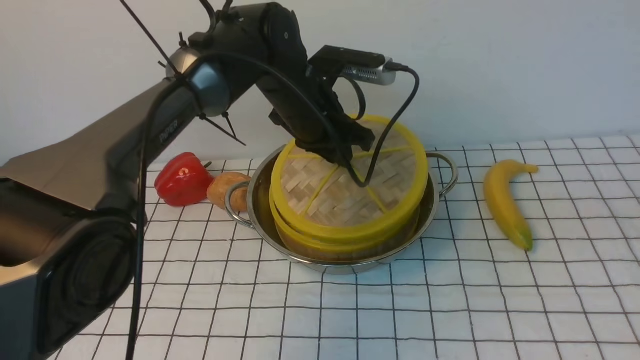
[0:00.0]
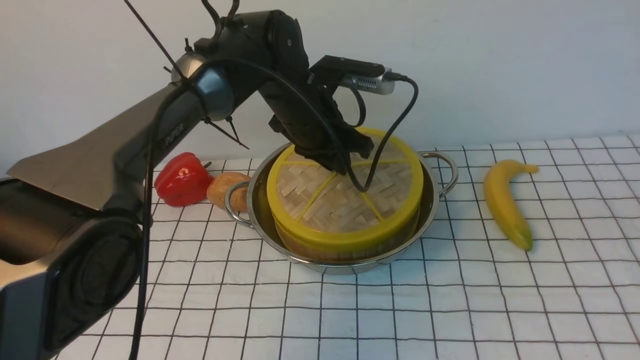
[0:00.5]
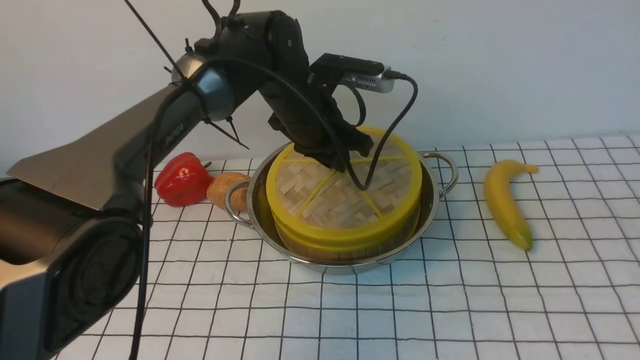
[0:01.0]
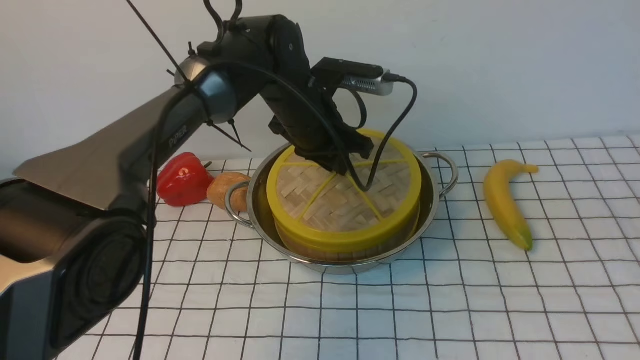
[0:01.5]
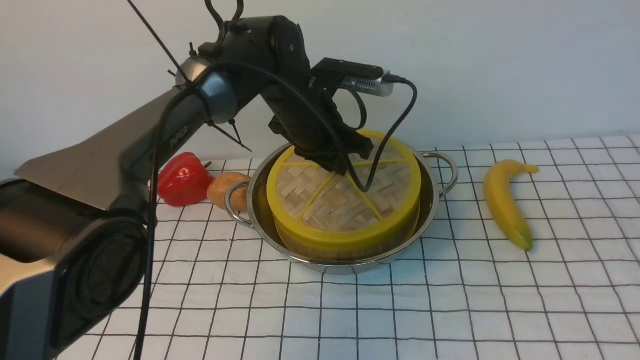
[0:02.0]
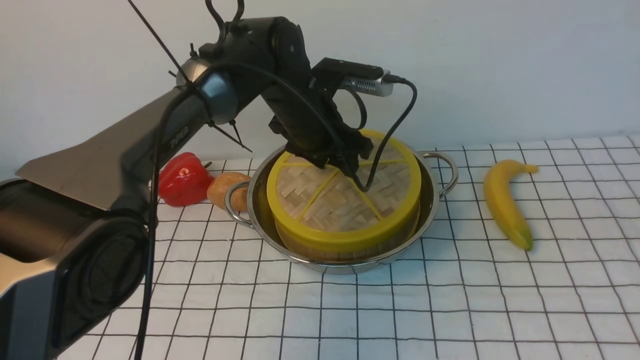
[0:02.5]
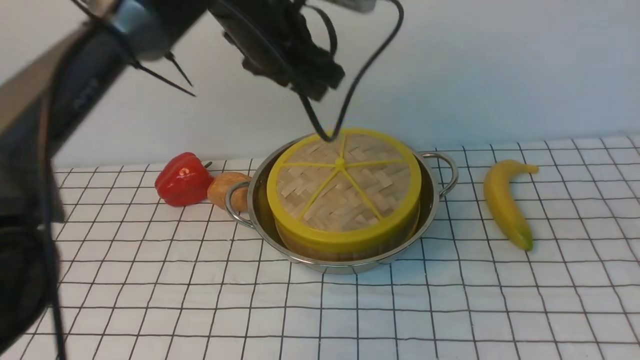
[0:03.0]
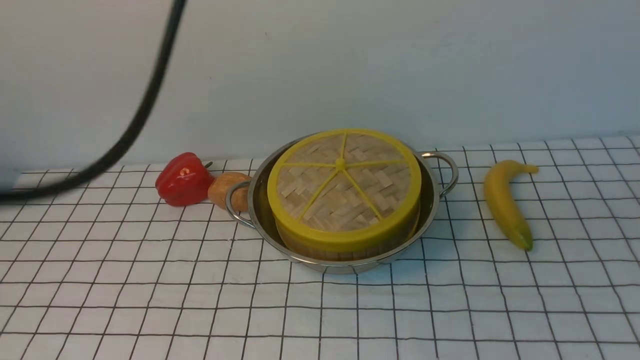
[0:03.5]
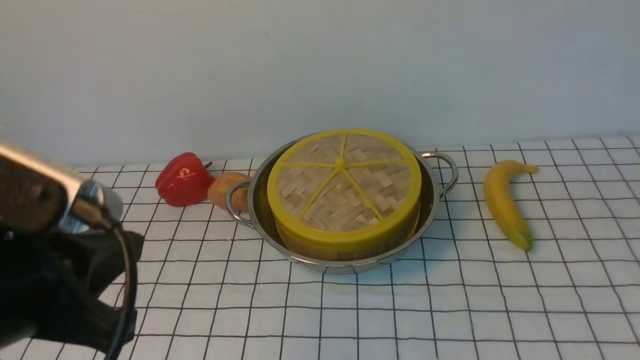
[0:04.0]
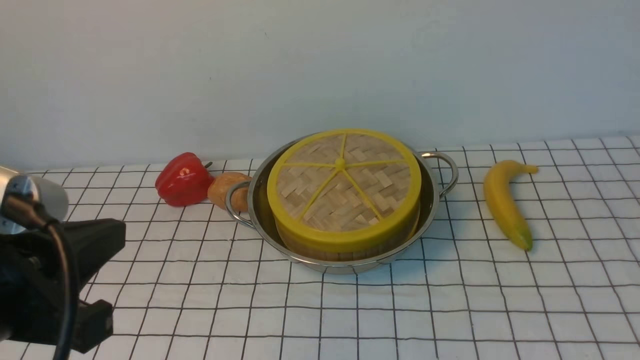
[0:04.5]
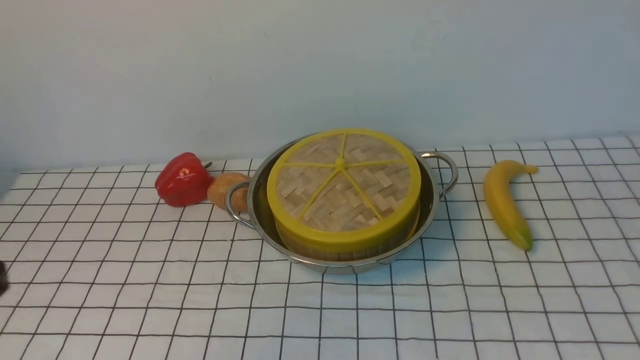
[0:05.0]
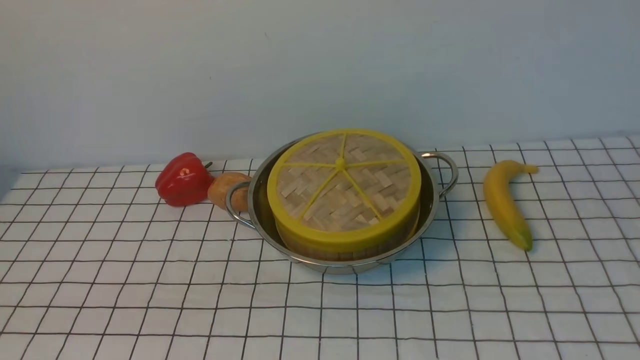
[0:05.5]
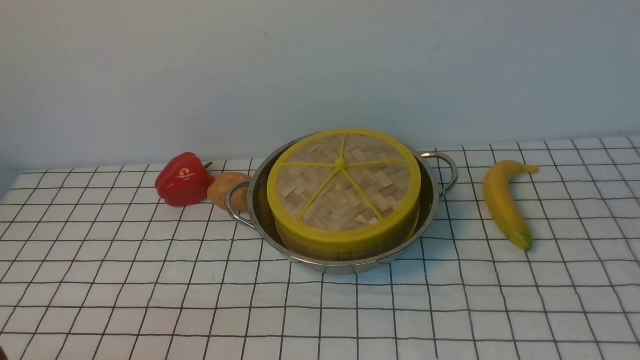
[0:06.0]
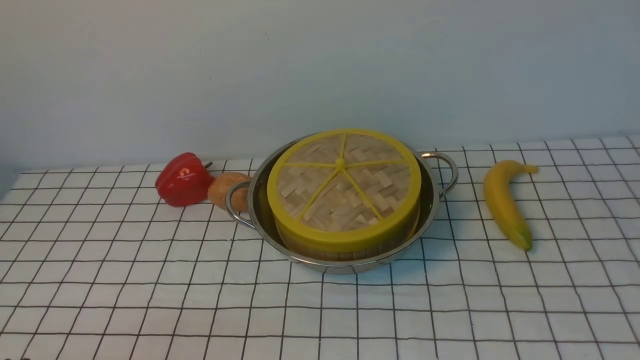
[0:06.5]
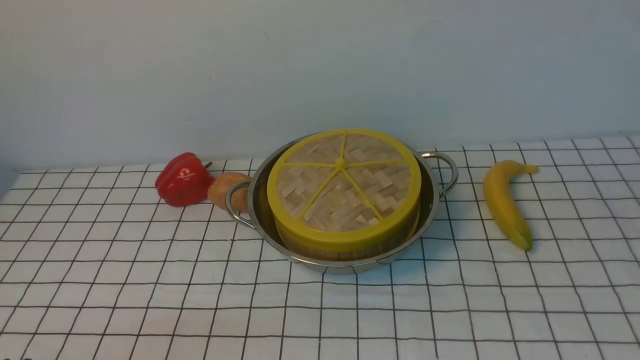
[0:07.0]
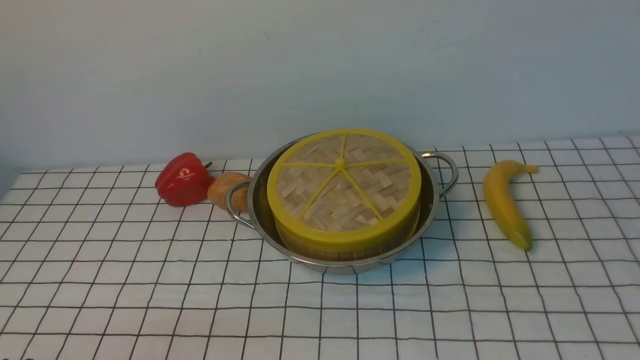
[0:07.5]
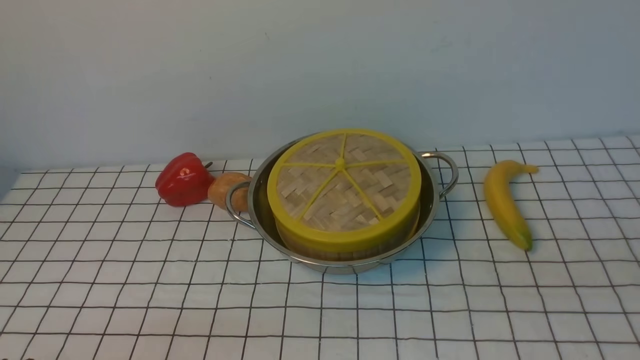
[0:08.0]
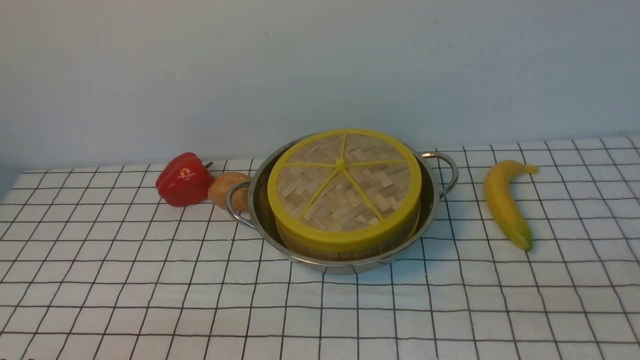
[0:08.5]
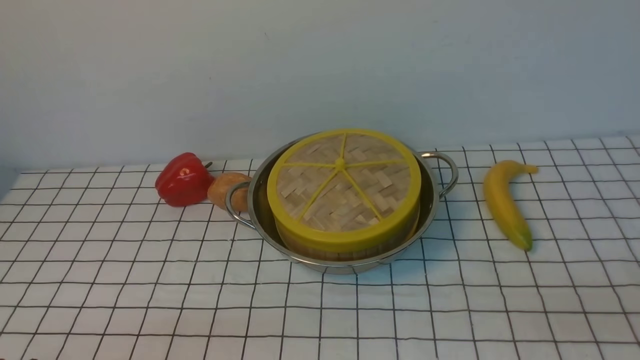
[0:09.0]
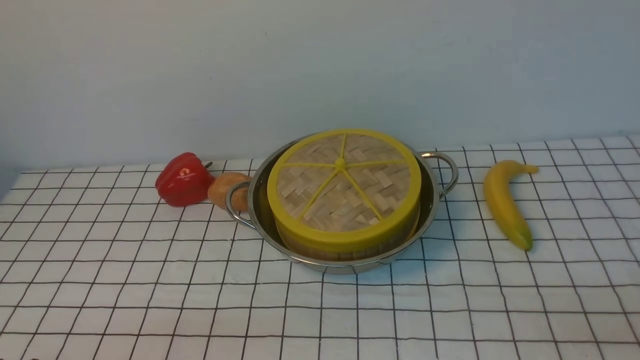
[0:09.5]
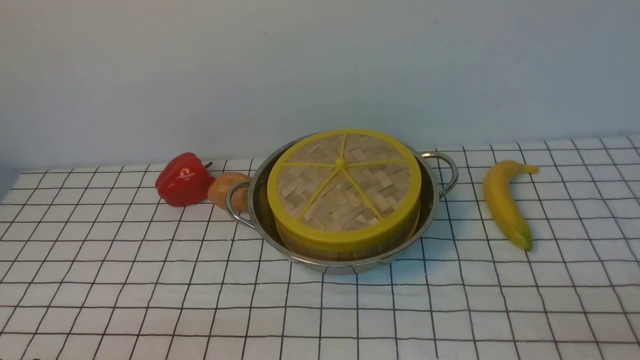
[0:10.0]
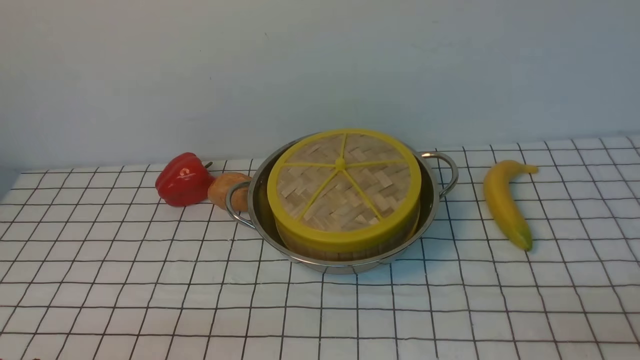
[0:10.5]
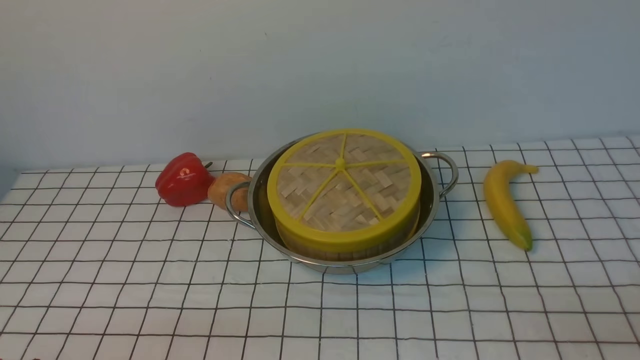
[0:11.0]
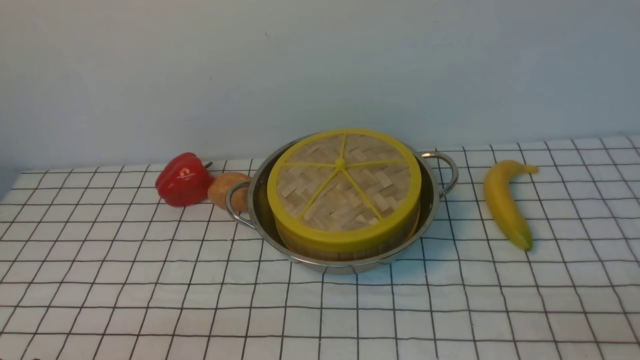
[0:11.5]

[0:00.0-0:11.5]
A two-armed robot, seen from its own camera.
Task of the whole recording: place the steamer in the pot on the white tablecloth, and put the lid on the steamer.
Step, 0:00.0 to 0:02.5: use the left arm to place the steamer lid on the steamer.
0:00.0 to 0:02.0: The grippers stay close to where they were, moving slightly.
0:02.0 to 0:04.0: The left gripper moves backward and to the left, roughly 35 cm, and closes up.
0:04.0 to 0:06.0: The left gripper heads downward, backward and to the left, covering about 20 cm.
0:09.5 to 0:11.5: Neither gripper changes place.

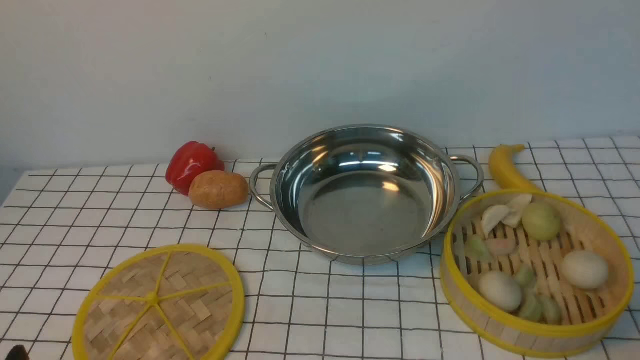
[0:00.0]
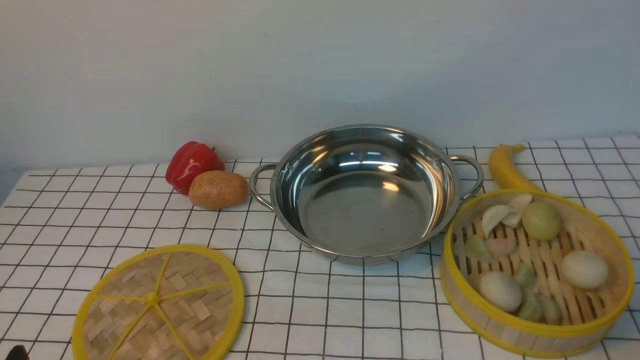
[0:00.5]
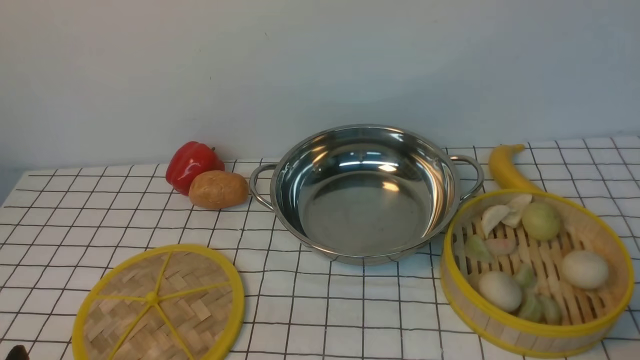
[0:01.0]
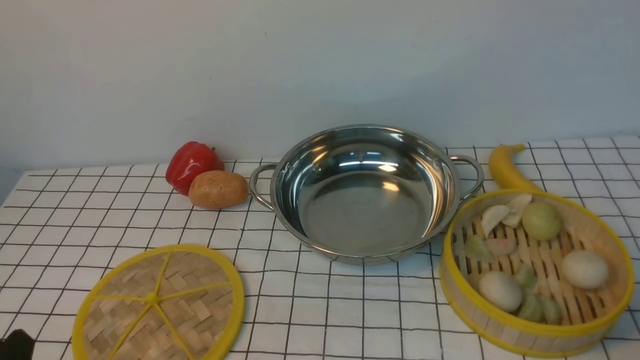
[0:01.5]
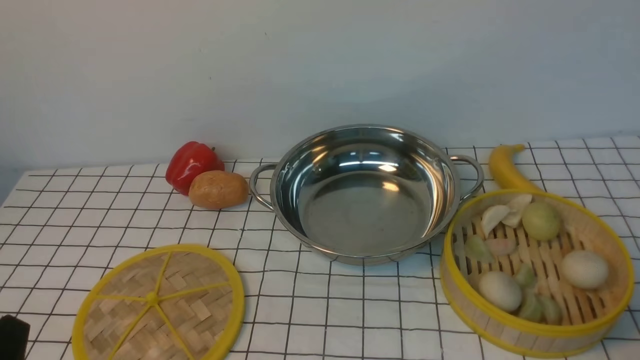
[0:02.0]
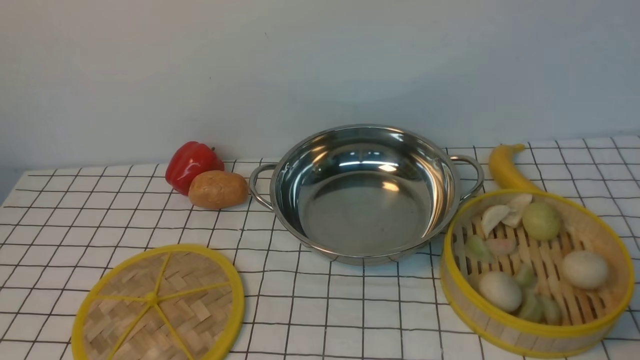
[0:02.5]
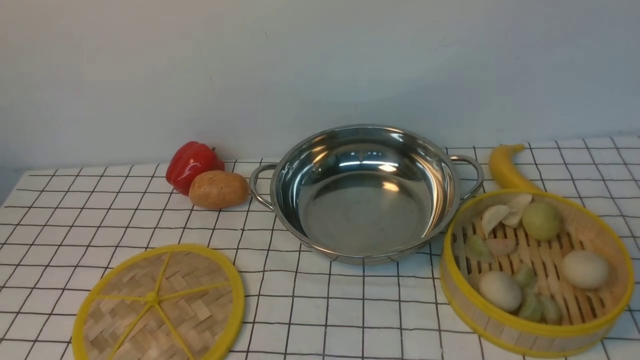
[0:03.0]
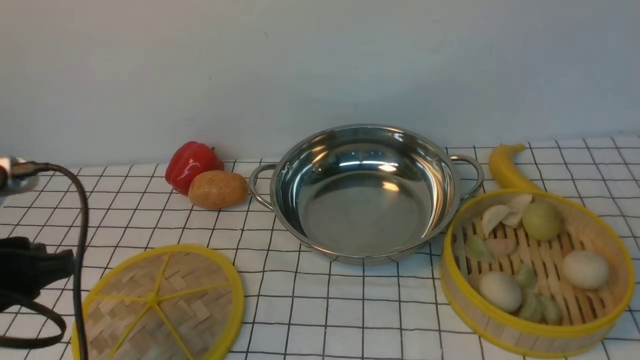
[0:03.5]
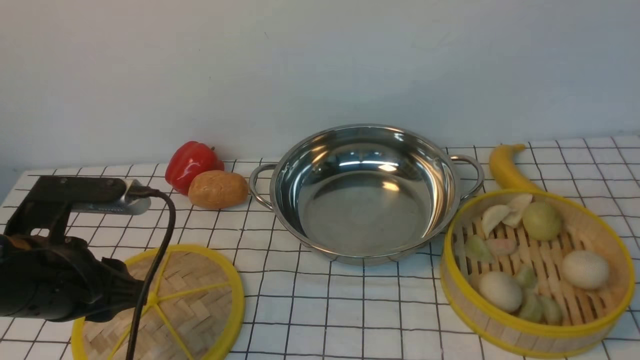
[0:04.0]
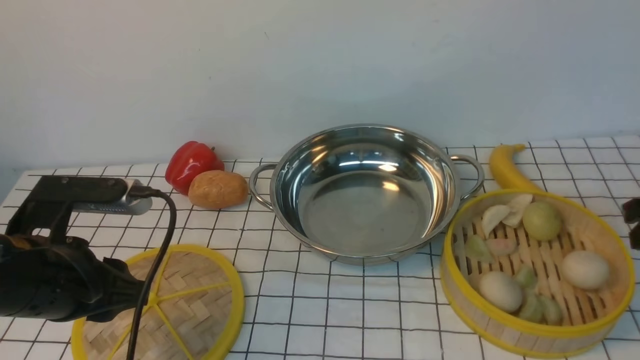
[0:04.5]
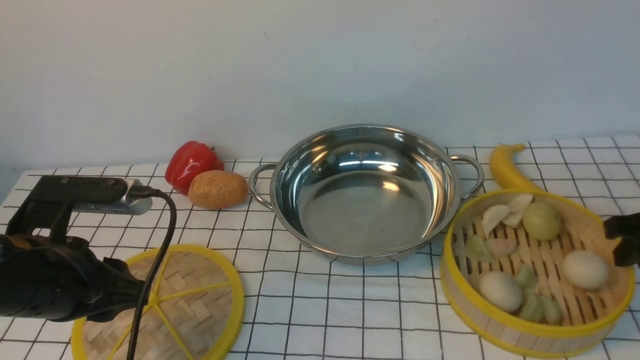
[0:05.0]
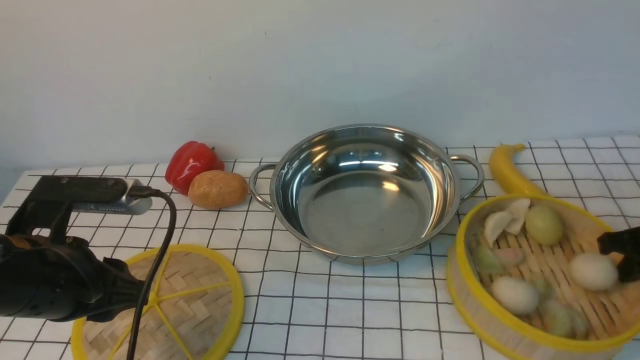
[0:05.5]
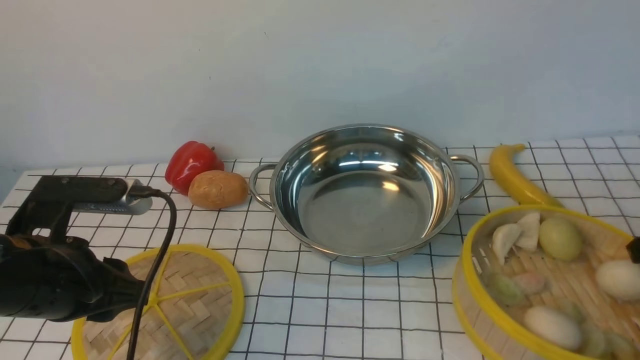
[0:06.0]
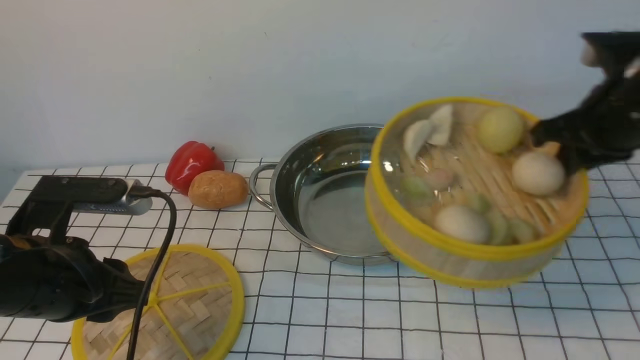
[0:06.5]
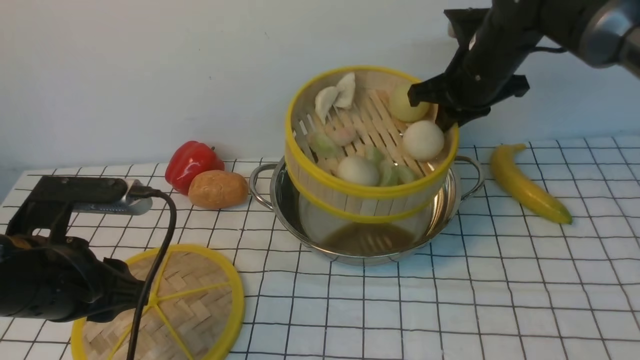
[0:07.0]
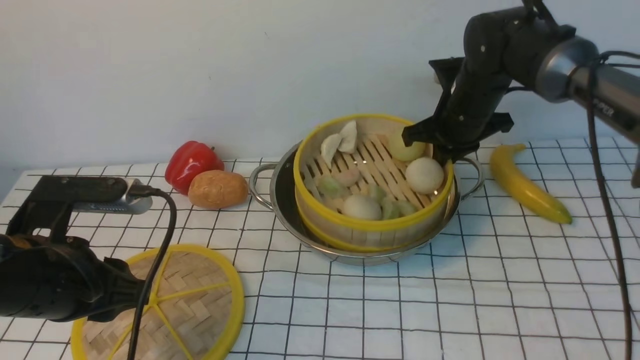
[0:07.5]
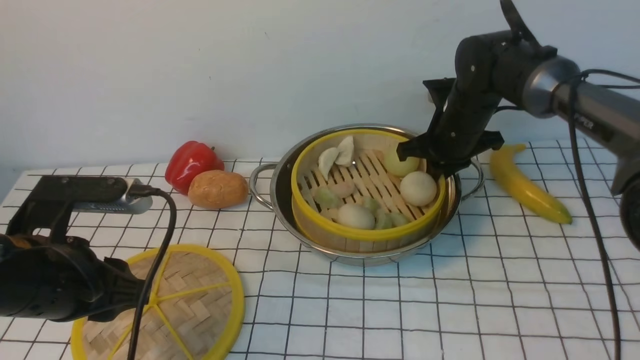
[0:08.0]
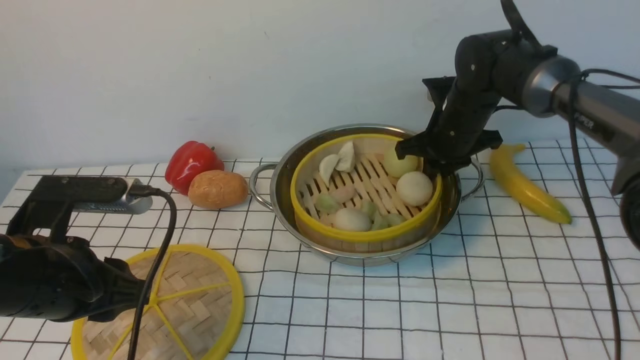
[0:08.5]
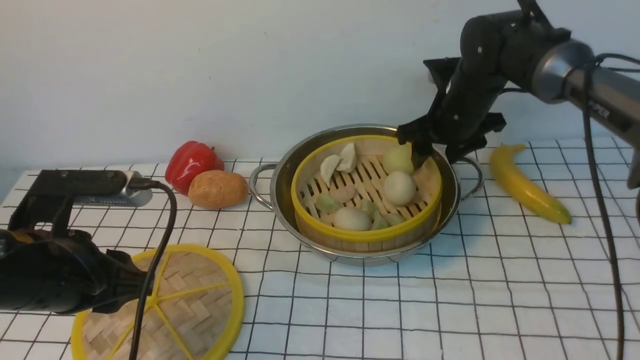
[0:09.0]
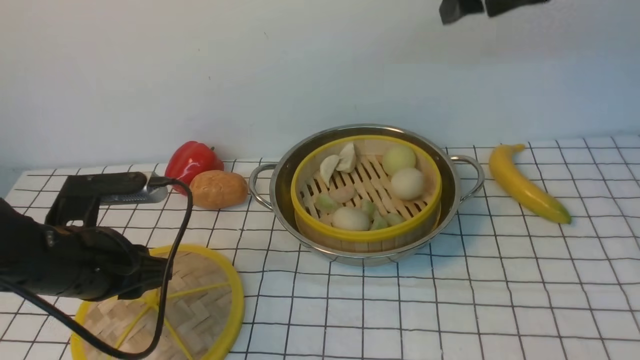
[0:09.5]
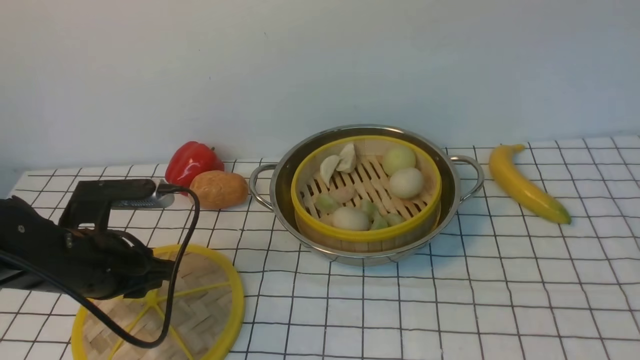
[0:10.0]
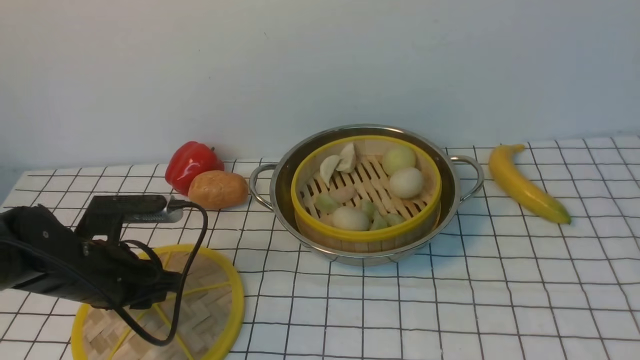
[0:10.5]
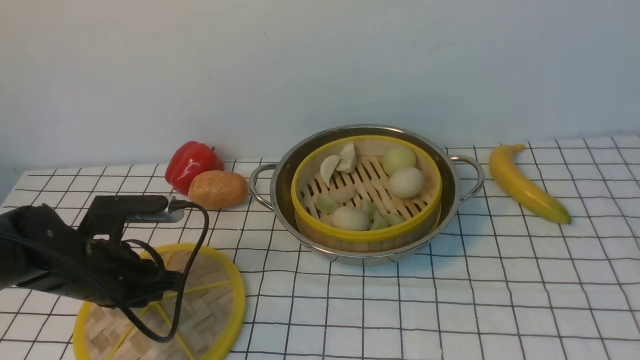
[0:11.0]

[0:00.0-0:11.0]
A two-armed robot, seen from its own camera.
Task of the whole recording: place the steamer in the pot on the white tablecloth, and put the lid on the steamer.
Step, 0:00.0 to 0:06.0: use the right arm to lift the steamer closest to it.
Step, 0:06.5 to 0:09.0: use the right arm to put the steamer into the iron steamer pot in the middle.
0:02.0 to 0:03.5: The left gripper shifts about 15 cm forward and upward.
0:03.5 to 0:05.5: The right gripper travels downward and forward by about 25 cm.
0:05.5 to 0:07.5: The right gripper goes about 25 cm to the left and forward.
0:07.5 to 0:09.0: The right gripper opens.
0:09.0 to 0:11.0: The right gripper heads backward and upward, covering roughly 50 cm, and closes, while the left gripper goes approximately 10 cm downward and forward, and closes up.
